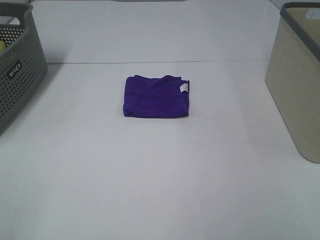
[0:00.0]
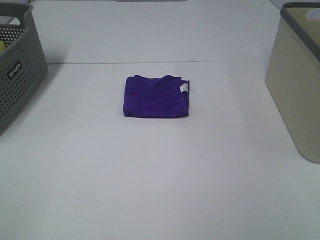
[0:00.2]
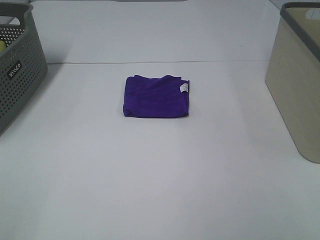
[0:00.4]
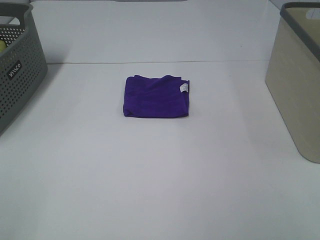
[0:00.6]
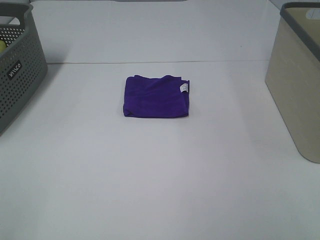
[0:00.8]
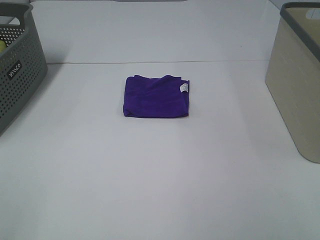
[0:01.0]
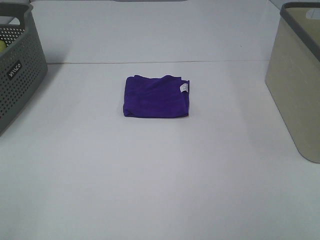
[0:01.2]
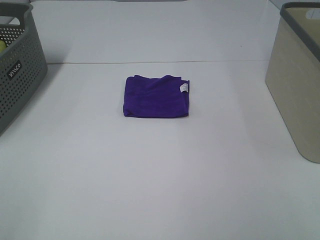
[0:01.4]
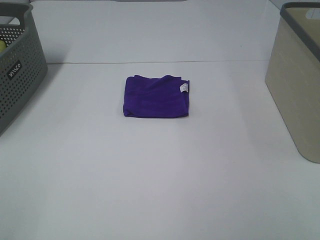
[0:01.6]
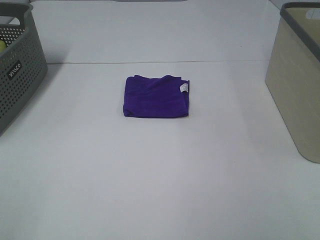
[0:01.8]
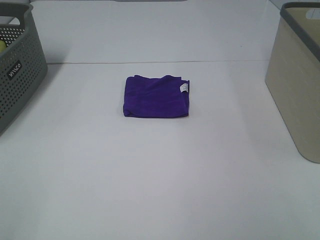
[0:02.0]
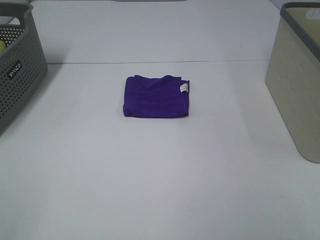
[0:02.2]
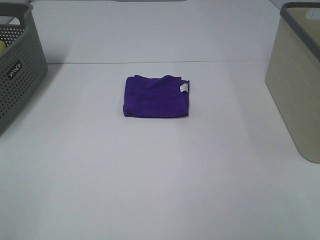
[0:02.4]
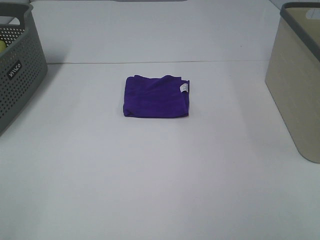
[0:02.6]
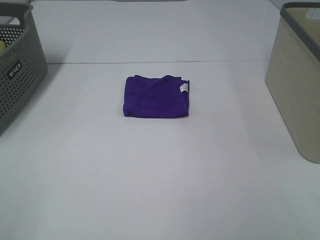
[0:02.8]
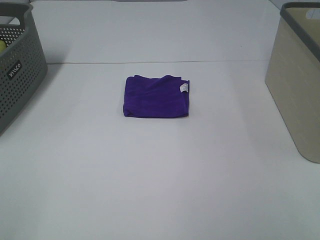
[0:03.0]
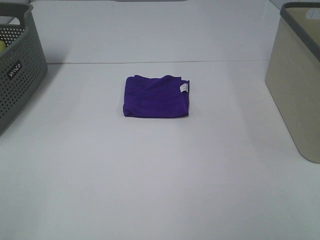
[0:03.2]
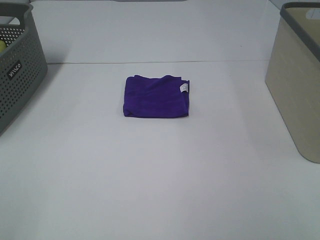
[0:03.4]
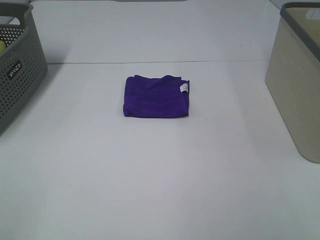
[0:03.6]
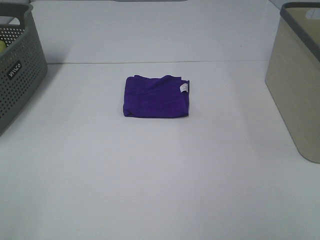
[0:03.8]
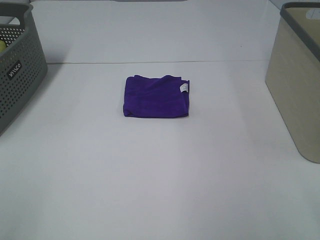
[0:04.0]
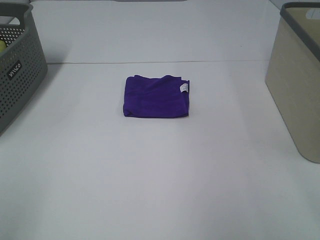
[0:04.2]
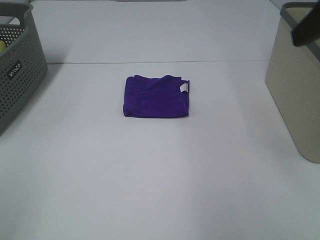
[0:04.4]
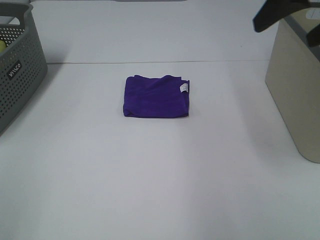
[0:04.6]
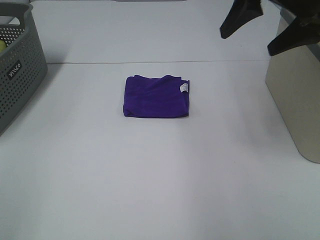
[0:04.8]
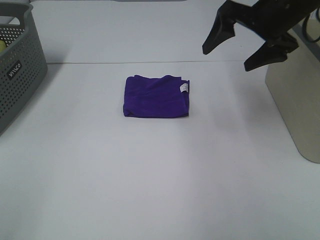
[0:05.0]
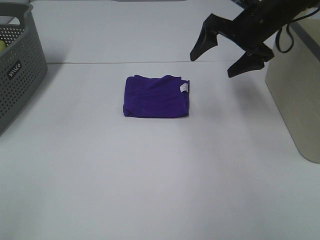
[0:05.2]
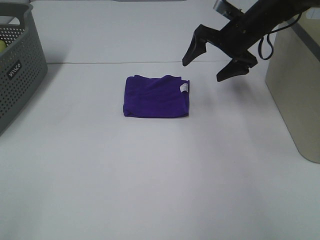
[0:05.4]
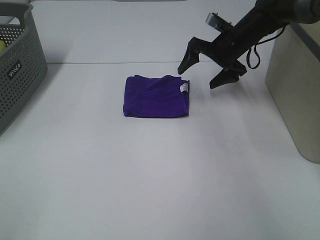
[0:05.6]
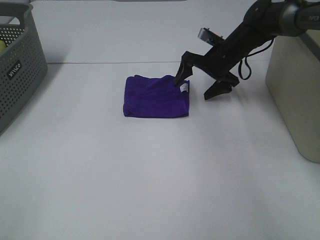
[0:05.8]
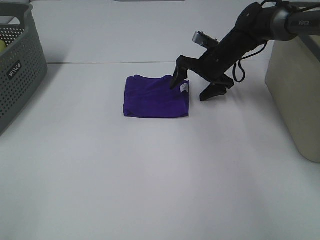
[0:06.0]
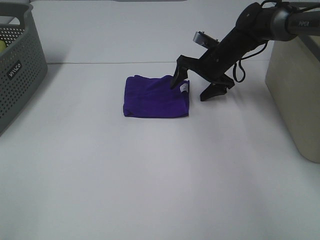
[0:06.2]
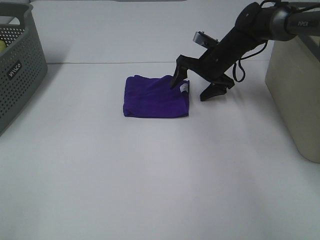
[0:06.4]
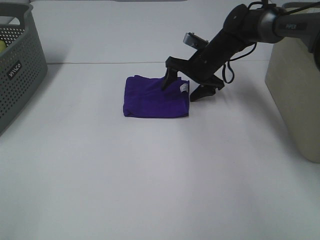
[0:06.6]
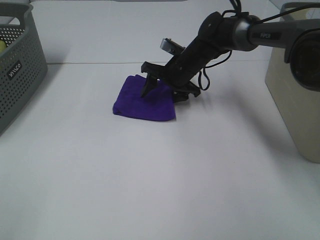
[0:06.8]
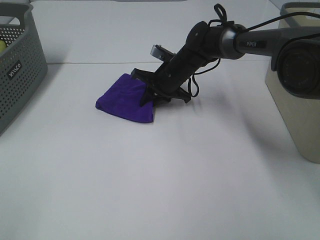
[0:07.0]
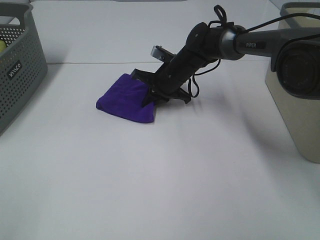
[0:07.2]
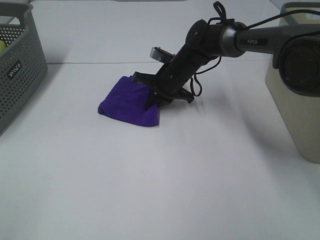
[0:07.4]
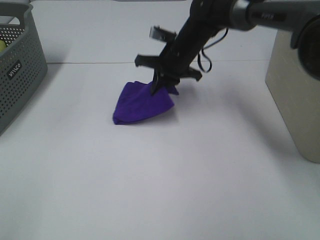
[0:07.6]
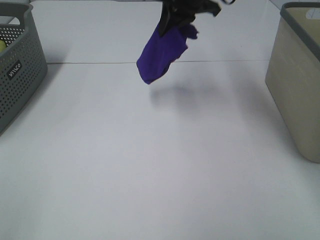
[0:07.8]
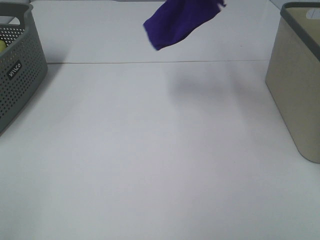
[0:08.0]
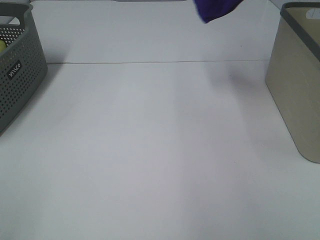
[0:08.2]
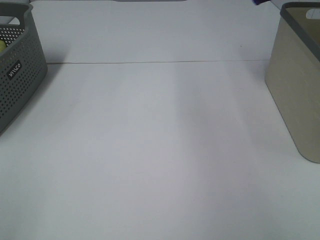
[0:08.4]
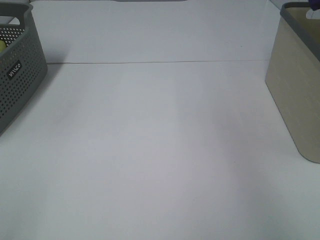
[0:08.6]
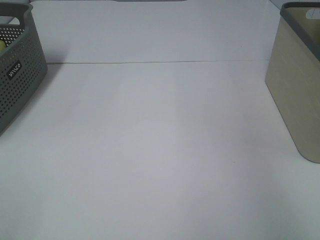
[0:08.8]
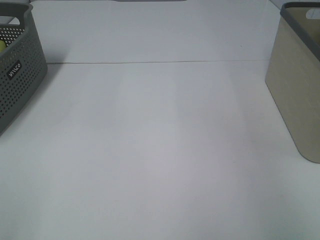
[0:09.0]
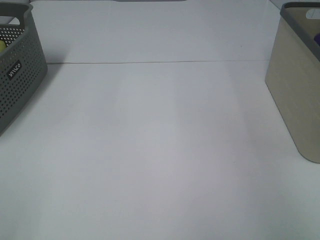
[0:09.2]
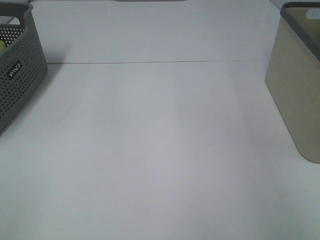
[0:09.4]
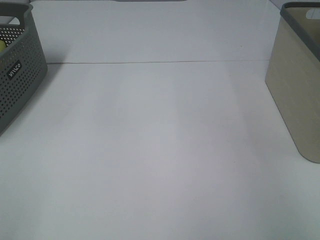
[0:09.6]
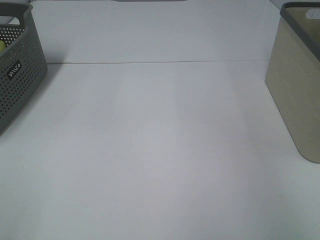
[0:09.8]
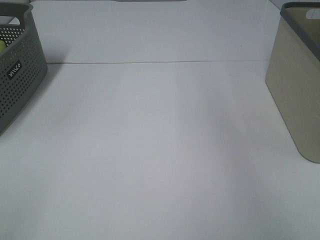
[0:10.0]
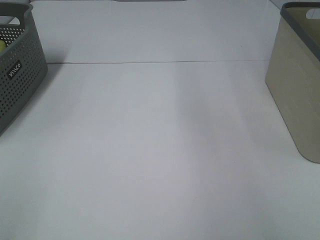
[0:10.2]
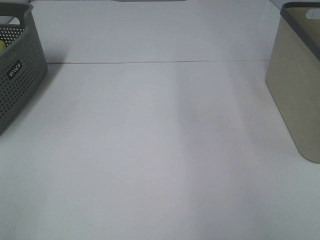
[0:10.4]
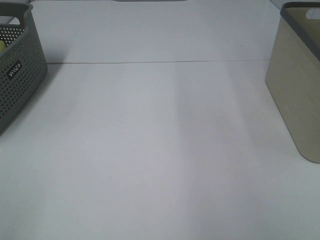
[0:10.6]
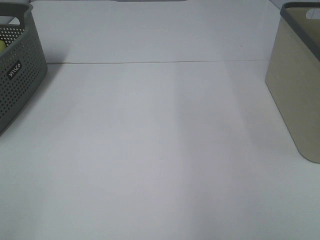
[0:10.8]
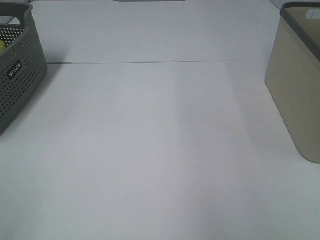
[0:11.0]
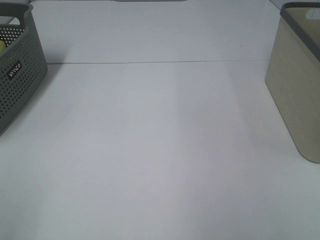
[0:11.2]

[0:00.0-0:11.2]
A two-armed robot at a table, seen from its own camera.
Step, 0:00.0 to 0:07.2: Right hand: grab the folded purple towel.
Step, 0:07.4 to 0:09.6: Right hand: place the purple towel in right basket.
0:00.0 to 0:03.2: Both grippers stay put.
0:03.2 to 0:04.8: The right gripper heads forward, covering about 35 cm.
0:04.8 to 0:06.4: The right gripper goes approximately 25 cm downward and forward.
0:06.4 to 0:08.0: The right gripper travels upward by roughly 25 cm, and closes up.
0:08.0 to 0:09.6: The right gripper heads to the right, covering about 30 cm, and opens up.

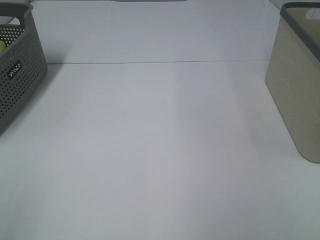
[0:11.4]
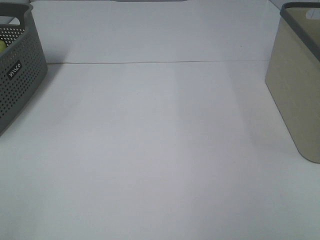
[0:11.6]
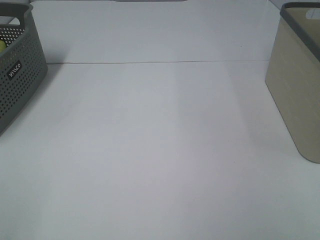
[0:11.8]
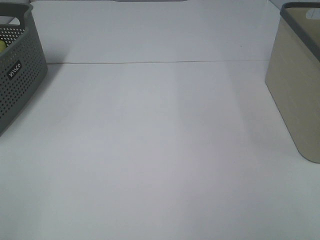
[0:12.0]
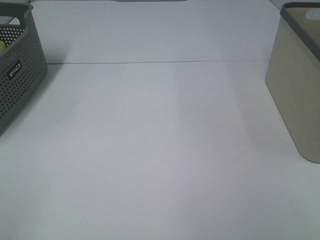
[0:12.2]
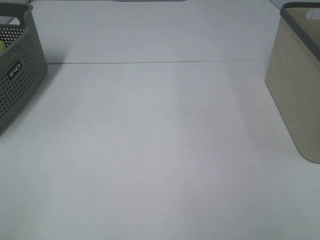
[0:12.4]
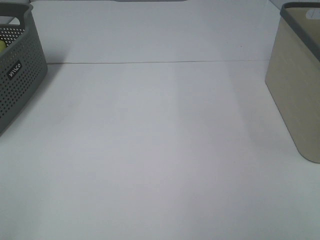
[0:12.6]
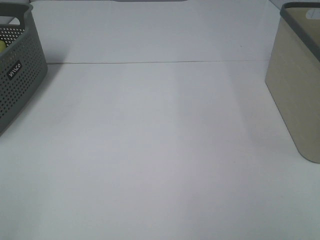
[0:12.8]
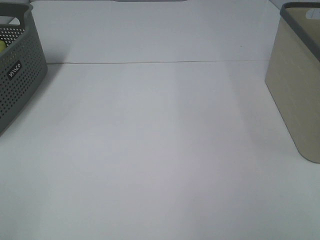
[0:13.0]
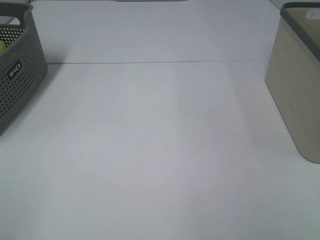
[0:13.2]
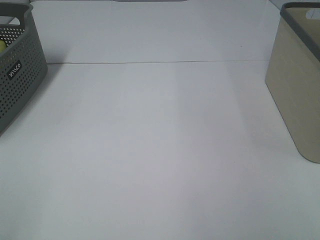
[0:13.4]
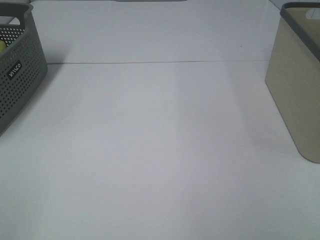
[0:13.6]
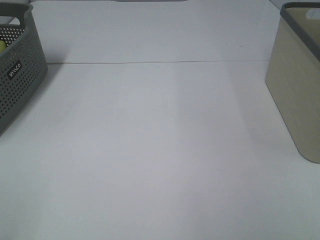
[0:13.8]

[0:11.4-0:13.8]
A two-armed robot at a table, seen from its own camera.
0:12.6 to 0:13.8: Both grippers stay about where they are.

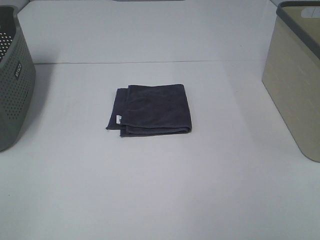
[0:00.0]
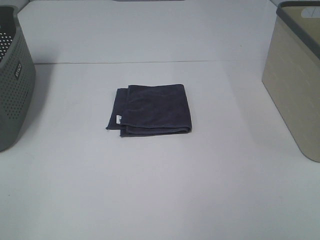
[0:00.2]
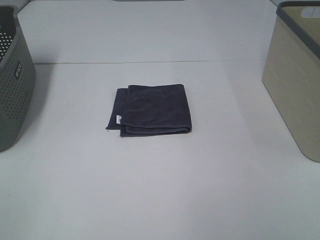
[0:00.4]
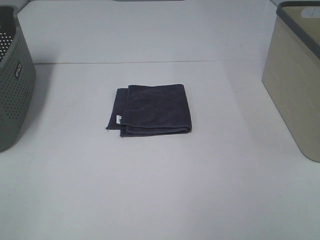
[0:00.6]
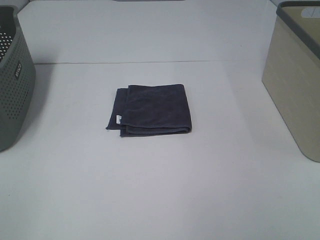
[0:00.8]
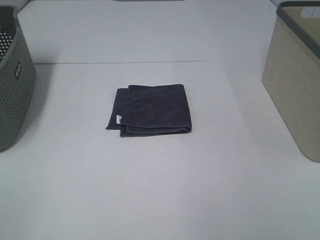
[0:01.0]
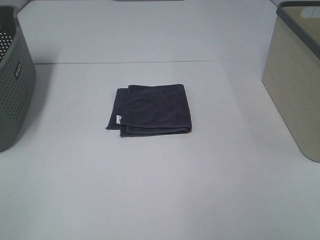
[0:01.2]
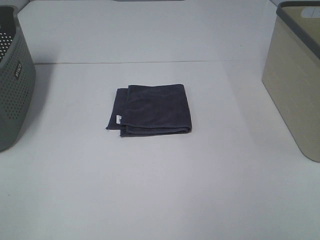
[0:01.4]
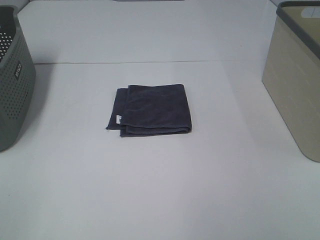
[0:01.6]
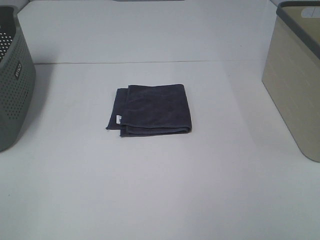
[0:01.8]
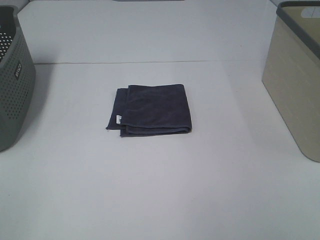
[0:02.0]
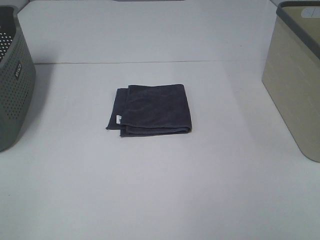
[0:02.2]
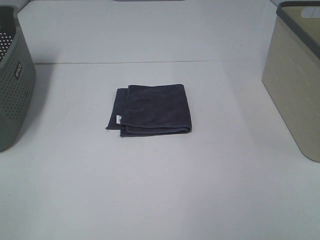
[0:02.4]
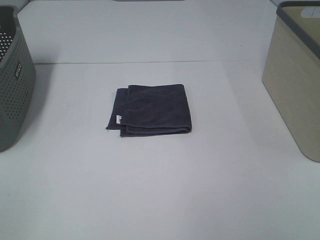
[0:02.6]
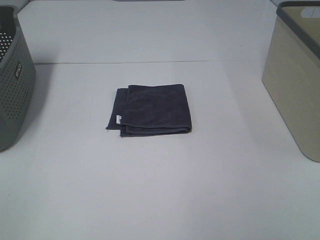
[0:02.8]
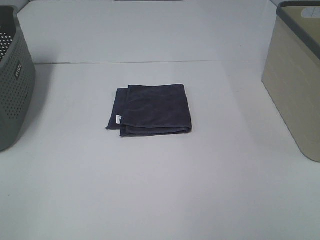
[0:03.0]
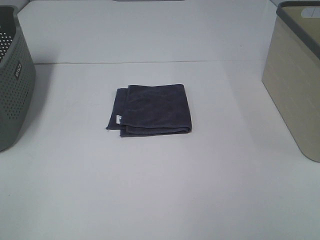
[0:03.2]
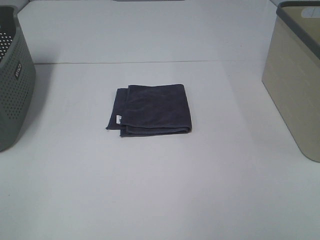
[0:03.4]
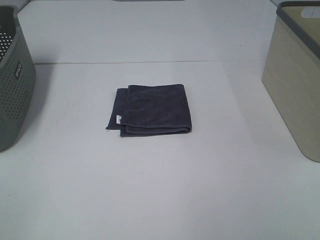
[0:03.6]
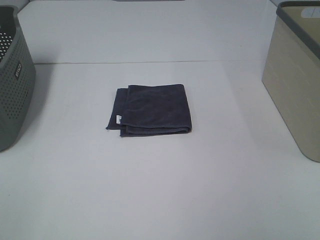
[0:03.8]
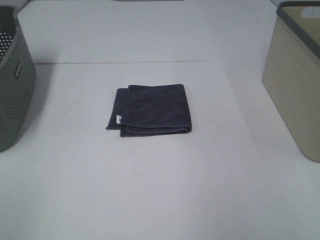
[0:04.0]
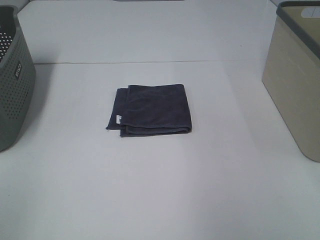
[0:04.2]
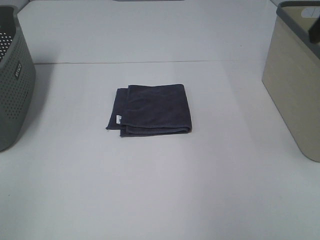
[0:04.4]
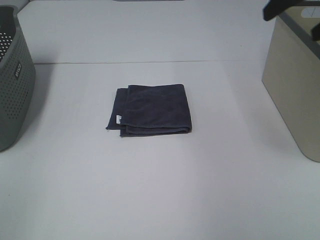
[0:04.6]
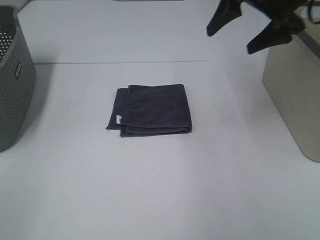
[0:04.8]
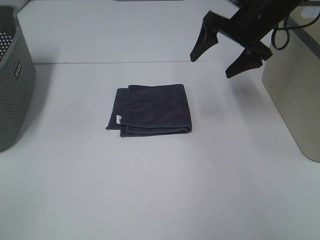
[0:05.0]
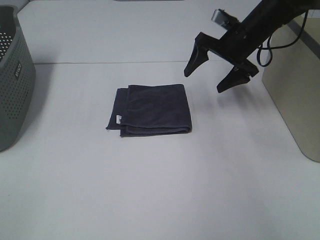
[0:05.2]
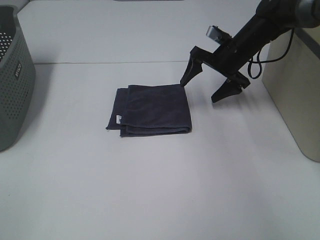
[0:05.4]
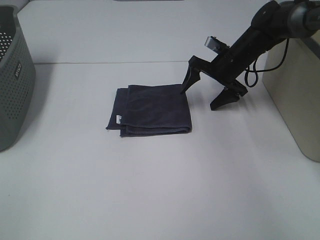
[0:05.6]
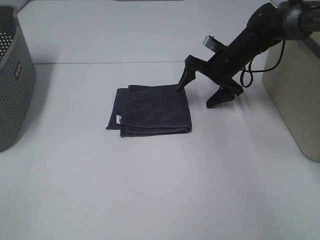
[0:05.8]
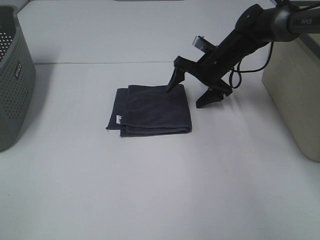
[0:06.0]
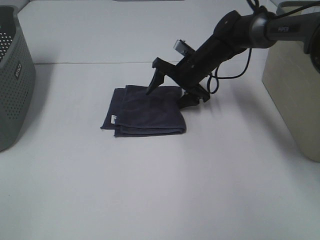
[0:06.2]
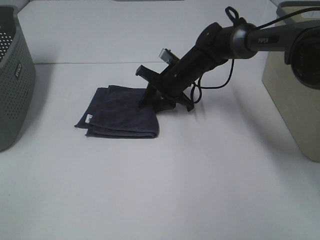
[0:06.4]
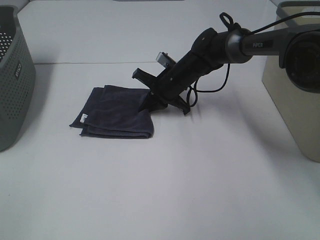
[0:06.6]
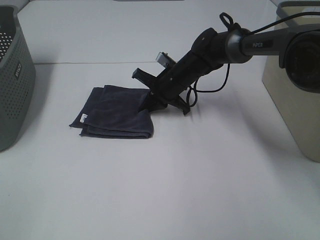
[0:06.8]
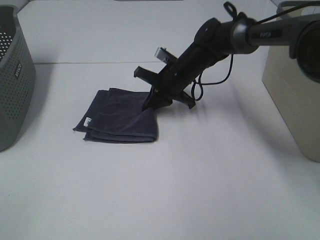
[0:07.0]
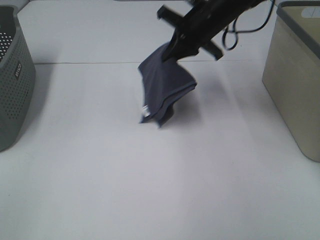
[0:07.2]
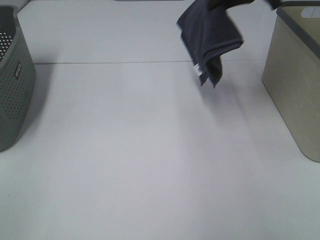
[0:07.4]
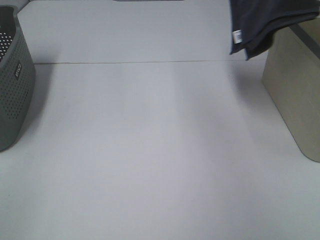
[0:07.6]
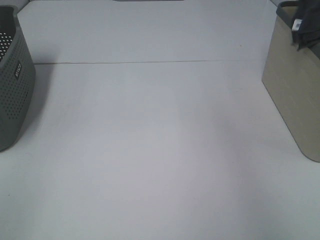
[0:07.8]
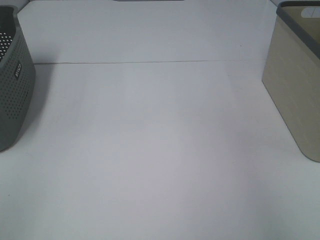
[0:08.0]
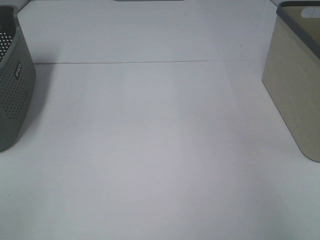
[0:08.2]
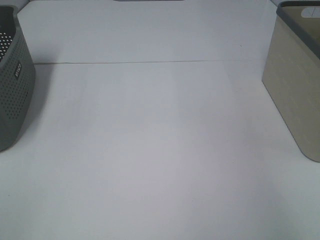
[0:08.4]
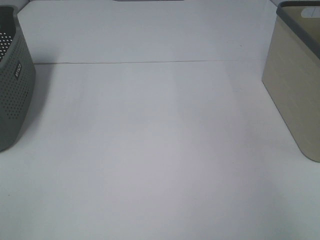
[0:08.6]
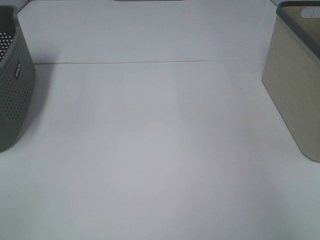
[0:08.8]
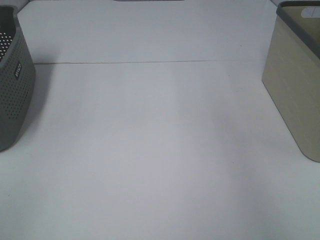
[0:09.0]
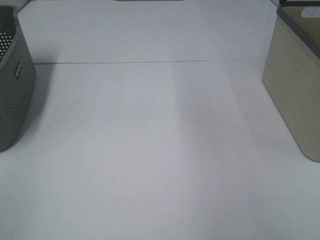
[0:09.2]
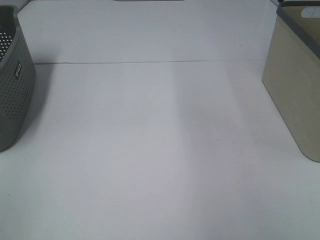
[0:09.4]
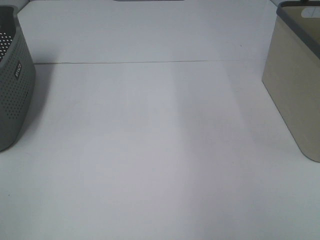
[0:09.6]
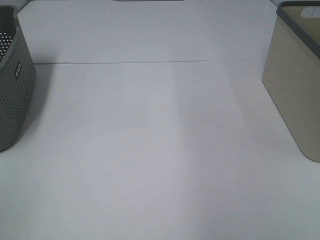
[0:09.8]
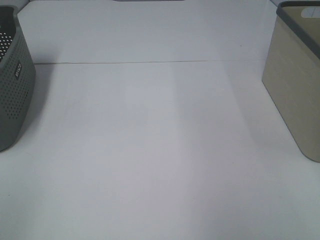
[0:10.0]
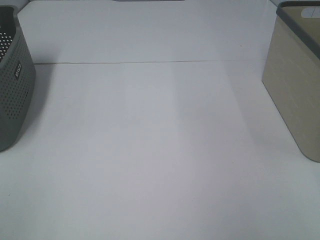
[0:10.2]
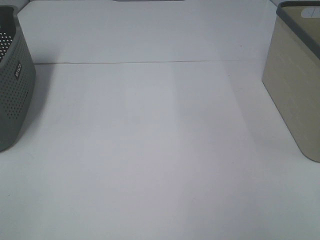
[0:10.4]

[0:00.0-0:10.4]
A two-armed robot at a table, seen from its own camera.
Step, 0:00.0 to 0:06.4: Right hand: grab the folded grey towel.
Step, 0:06.6 to 0:08.4: Right hand: place the grey towel in right basket.
0:00.0 to 0:03.0: Both grippers stay put.
0:04.4 to 0:06.0: The right gripper is displaced downward, forward and to the left by roughly 35 cm.
0:06.0 to 0:07.4: The right gripper is displaced upward by about 25 cm, and closes up.
0:07.4 to 0:09.0: The right gripper shifts some 15 cm to the right, and opens its fingers.
